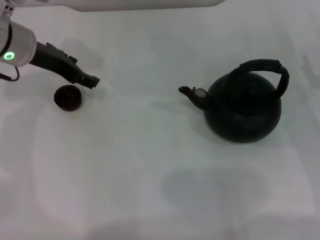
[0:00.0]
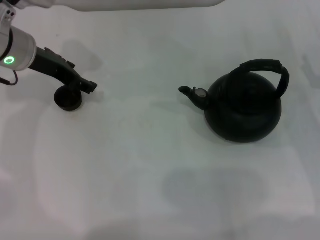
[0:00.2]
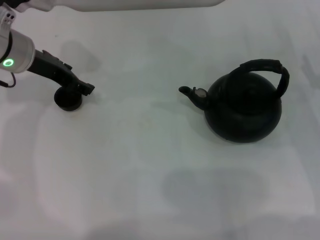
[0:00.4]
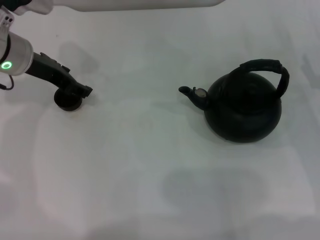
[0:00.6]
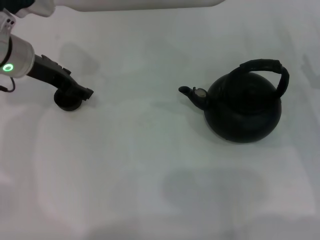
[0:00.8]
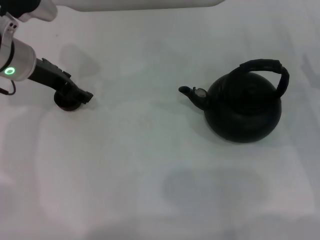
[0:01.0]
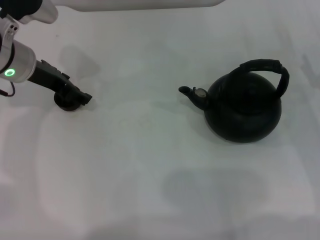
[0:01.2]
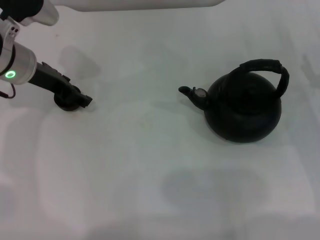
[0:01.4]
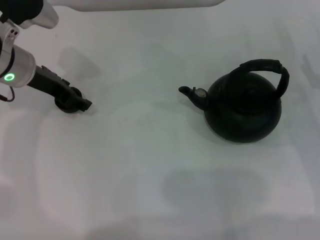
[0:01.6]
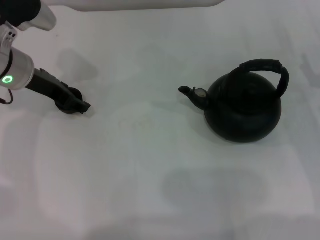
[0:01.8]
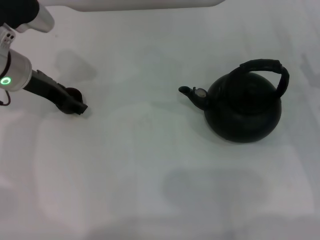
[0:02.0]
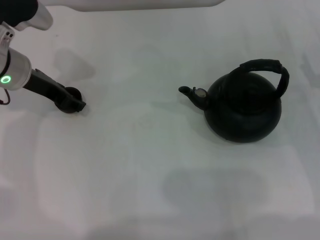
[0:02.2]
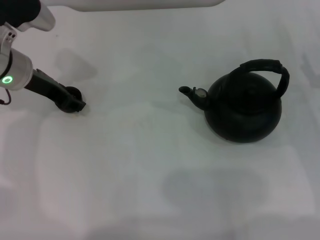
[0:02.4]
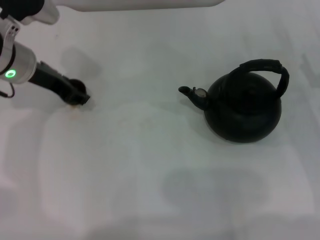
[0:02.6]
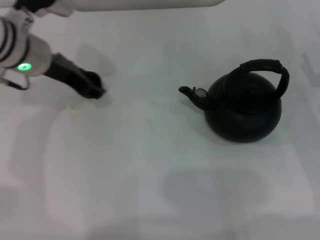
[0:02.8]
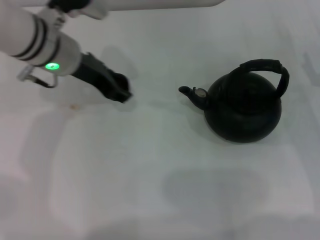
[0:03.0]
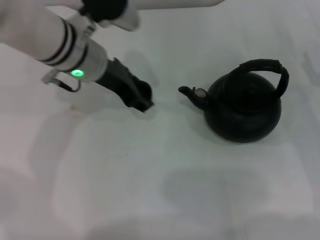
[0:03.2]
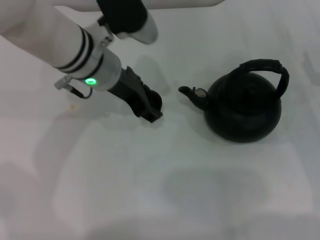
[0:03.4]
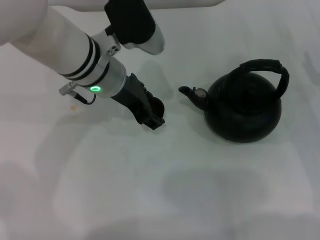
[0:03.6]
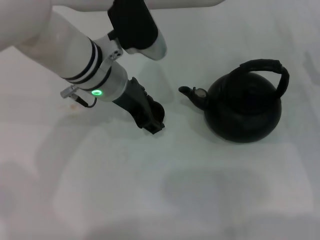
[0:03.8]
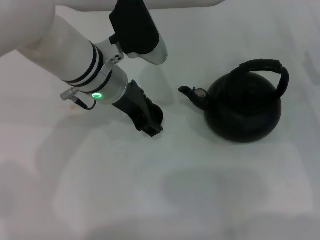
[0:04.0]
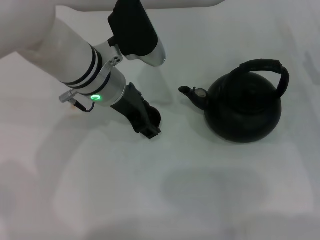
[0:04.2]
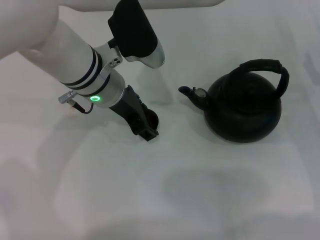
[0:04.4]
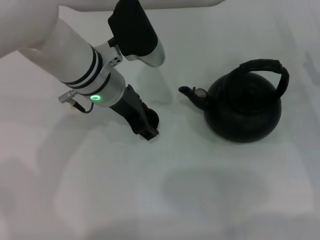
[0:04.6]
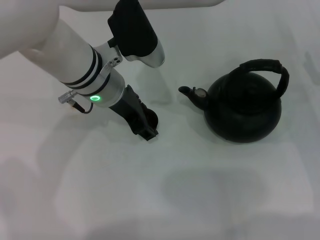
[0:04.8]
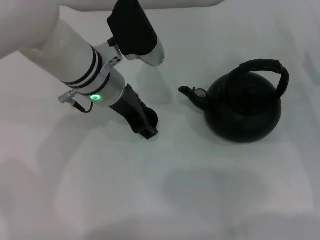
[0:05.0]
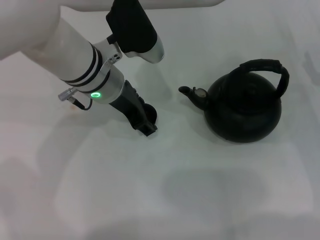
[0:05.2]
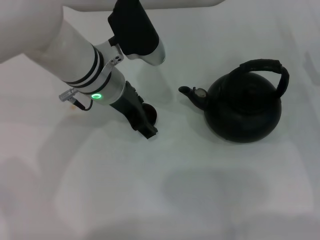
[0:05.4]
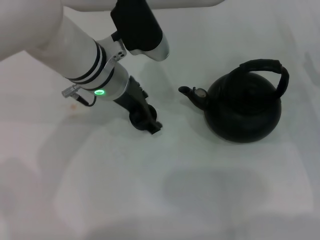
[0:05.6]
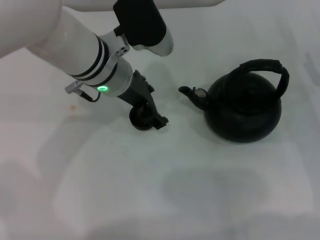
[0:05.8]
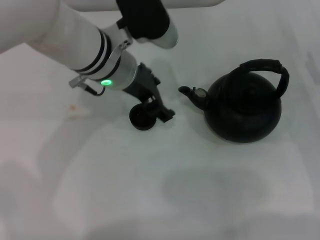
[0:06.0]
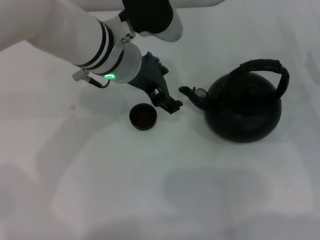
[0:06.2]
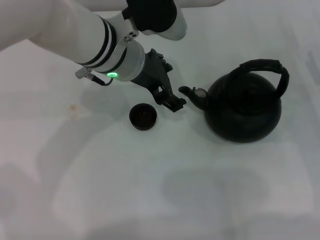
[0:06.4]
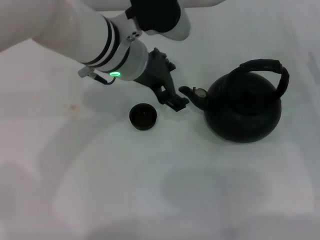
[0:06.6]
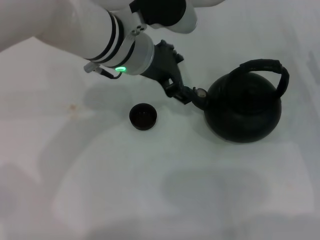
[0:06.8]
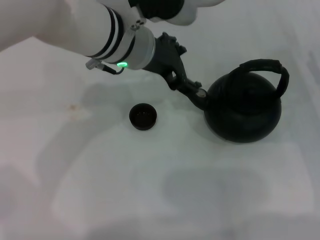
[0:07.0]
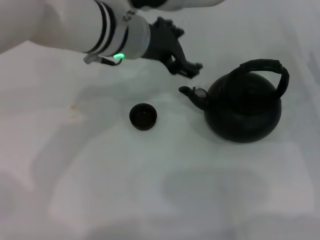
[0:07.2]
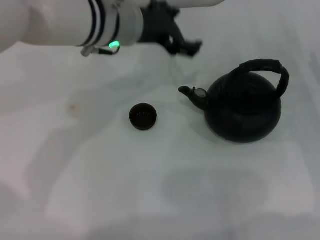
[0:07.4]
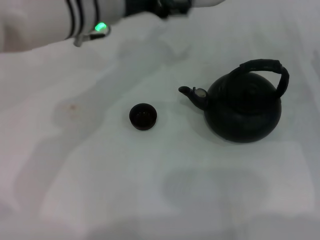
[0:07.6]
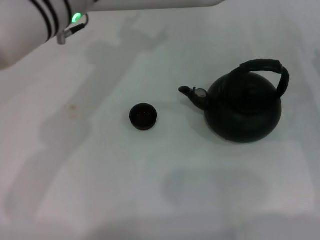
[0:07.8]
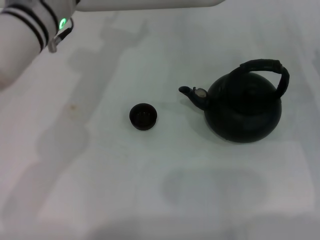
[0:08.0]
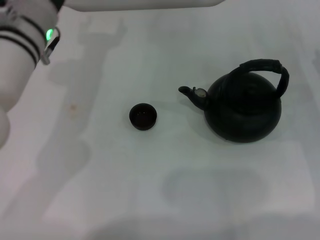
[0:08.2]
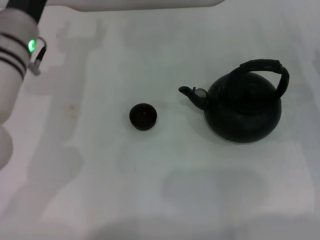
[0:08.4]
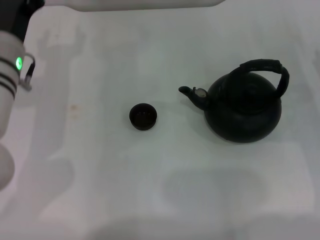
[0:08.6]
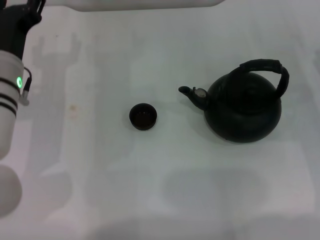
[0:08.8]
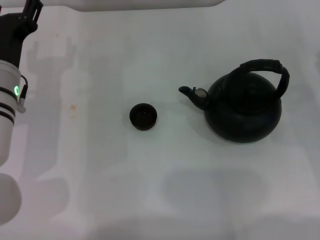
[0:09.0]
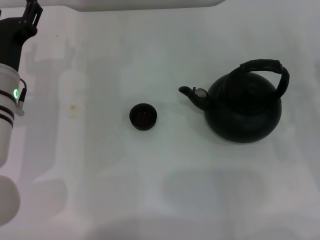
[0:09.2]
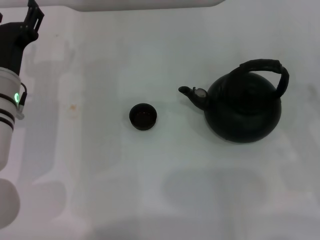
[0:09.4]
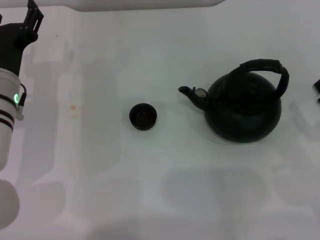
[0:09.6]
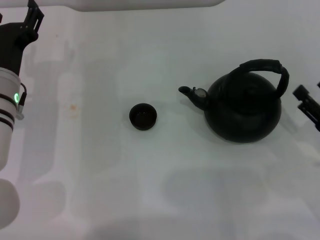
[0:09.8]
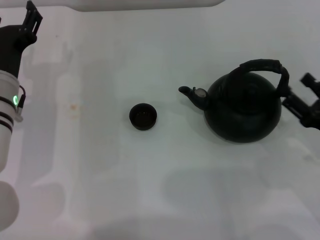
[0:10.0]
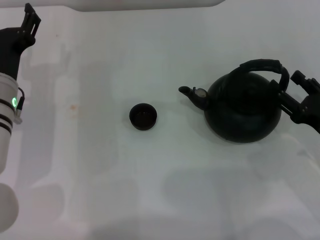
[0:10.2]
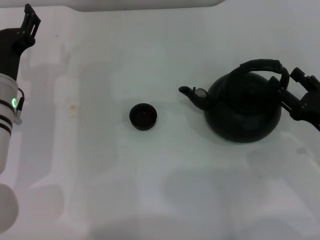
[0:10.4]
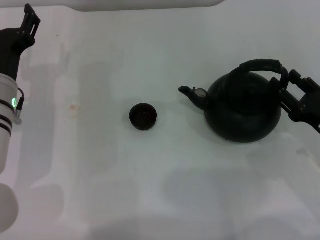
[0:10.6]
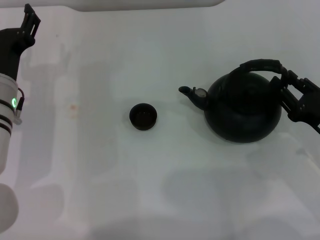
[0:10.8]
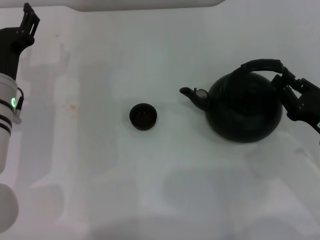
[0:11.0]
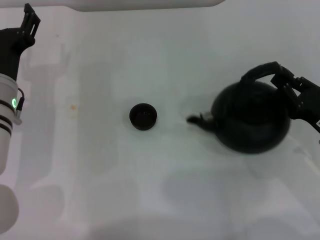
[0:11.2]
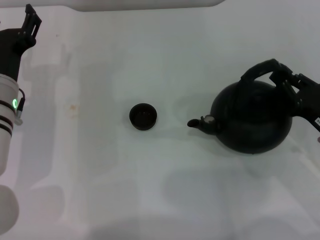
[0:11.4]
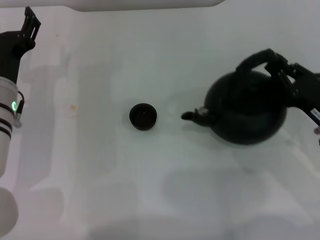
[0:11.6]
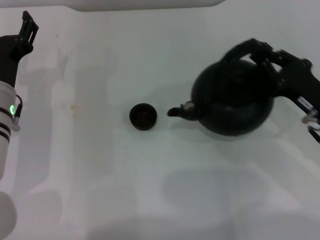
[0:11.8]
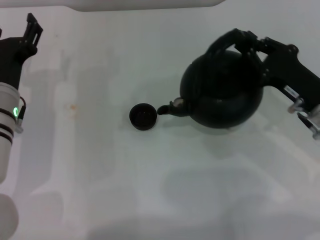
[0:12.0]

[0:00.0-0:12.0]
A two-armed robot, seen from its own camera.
Task of the whole recording: Grasp the handle of the teapot with one hand and pour tea into the teacup.
Step, 0:00.0 to 0:02.8: Pick up the teacup with the left gripper.
Step, 0:03.0 to 0:06.2: Place the teacup in the center of view with the left gripper.
Step, 0:06.4 to 0:11.8: Pick up the teapot with the right gripper.
0:00.0 to 0:01.6: The grippers move only a little.
0:01.6 to 0:03.0: The left gripper moves to the right, approximately 5 cm, and closes.
0:03.0 to 0:04.4: The left gripper shifts some 5 cm to the right.
0:04.4 to 0:06.0: The left gripper opens its fingers.
0:07.6 to 0:09.0: The left gripper is displaced downward, to the left and backward by some 15 cm.
0:09.0 to 0:10.4: The right gripper changes place by roughly 5 cm.
0:10.4 to 0:12.0: The right gripper travels forward by approximately 5 cm, and closes its fingers.

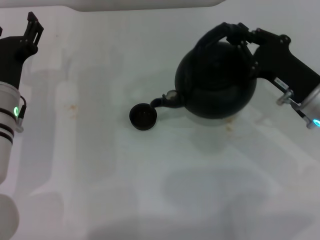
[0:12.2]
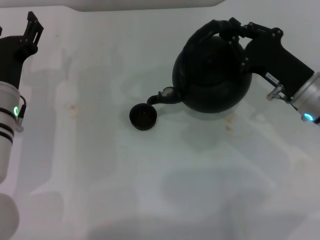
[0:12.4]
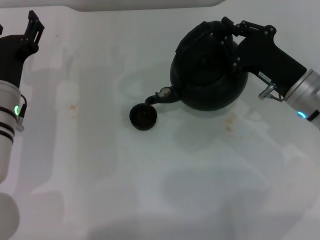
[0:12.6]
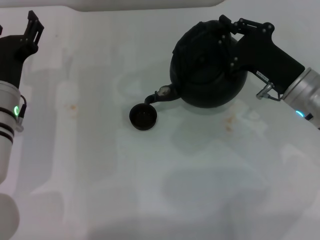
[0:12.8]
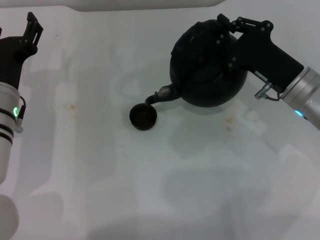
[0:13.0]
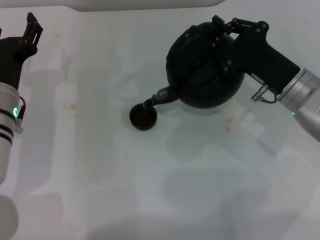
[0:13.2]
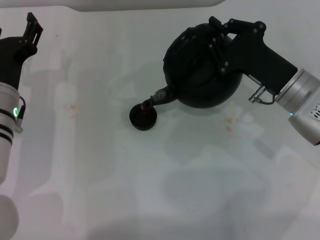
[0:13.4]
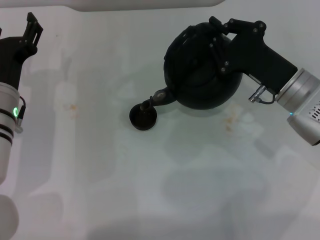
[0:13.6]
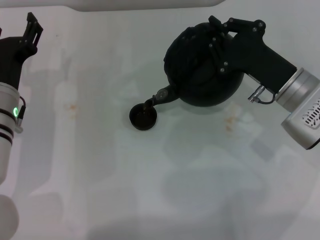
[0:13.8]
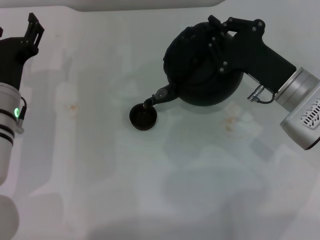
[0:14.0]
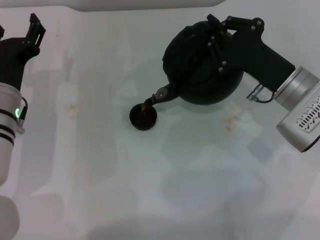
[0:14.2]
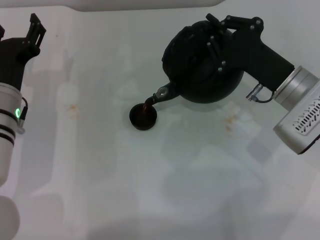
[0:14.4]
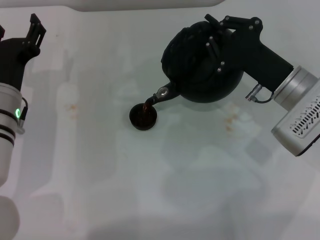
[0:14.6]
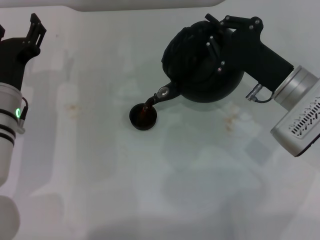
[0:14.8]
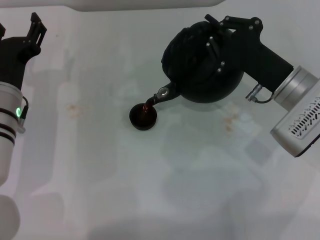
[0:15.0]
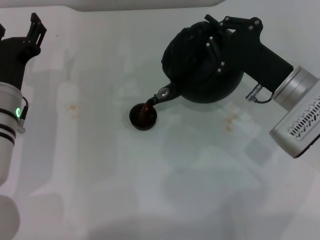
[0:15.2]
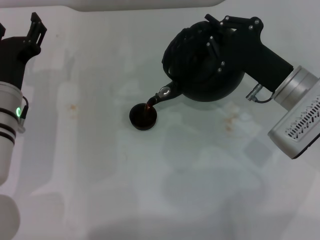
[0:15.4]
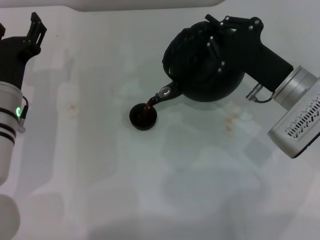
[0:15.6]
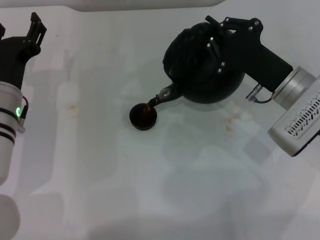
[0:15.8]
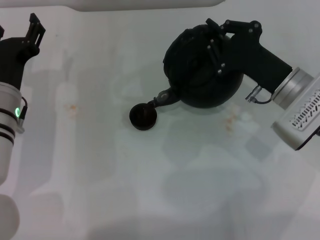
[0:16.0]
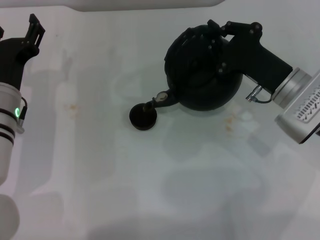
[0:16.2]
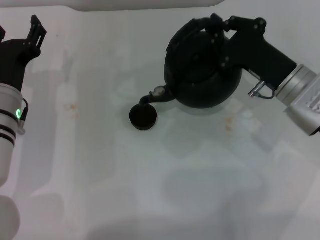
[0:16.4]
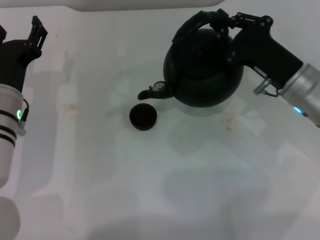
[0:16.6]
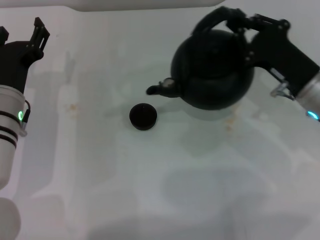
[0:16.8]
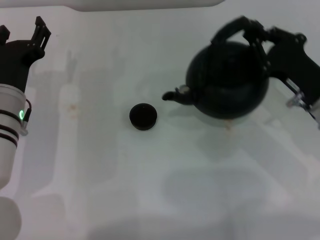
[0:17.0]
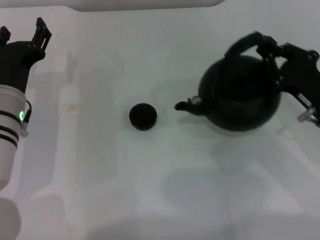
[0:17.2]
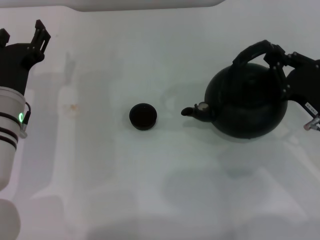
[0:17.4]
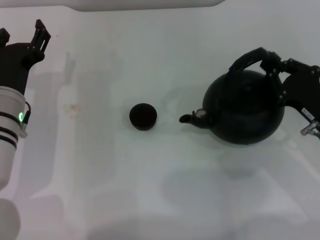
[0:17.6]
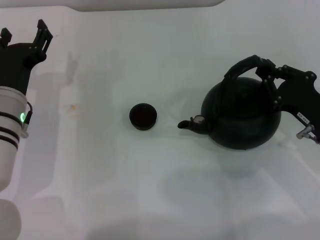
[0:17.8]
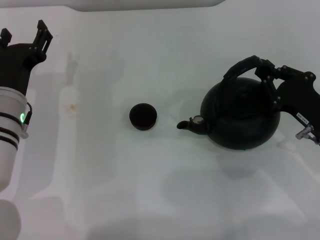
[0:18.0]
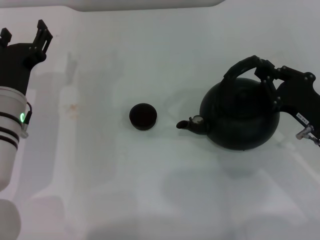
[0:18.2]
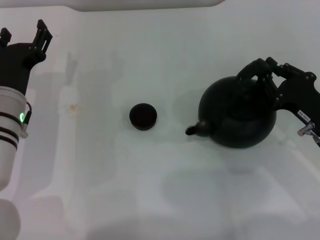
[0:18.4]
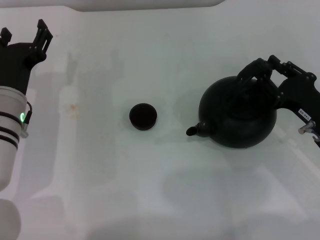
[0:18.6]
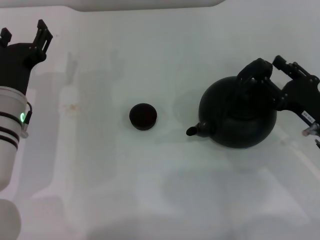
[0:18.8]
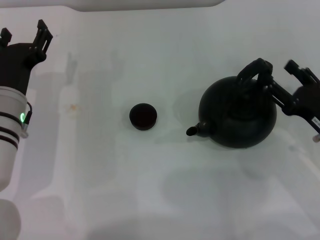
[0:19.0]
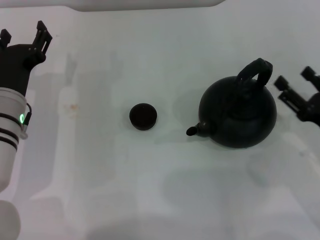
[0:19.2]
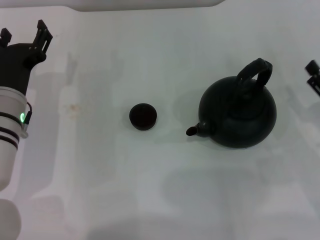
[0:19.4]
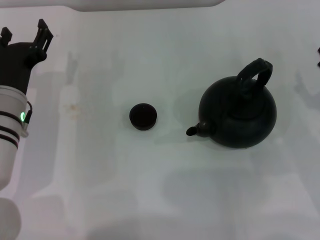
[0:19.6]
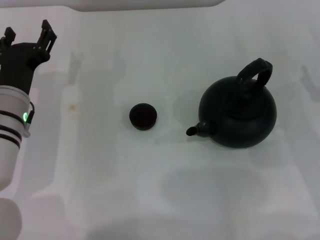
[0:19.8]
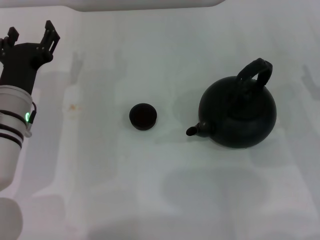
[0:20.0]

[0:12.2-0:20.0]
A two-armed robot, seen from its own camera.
Task of the whole recording: Grasp the handle of the teapot with one hand and pour tea into the teacup.
Step, 0:12.2 to 0:16.6: Pour tea into the teacup with the right gripper.
Step, 0:16.8 to 0:19.0: Put down the teapot with the right gripper.
0:13.8 to 0:15.4: The grippers make only small movements.
0:16.8 to 0:18.4: The right gripper shifts by some 5 cm.
0:18.4 to 0:20.0: The right gripper moves to the right, roughly 5 cm, and opens up.
